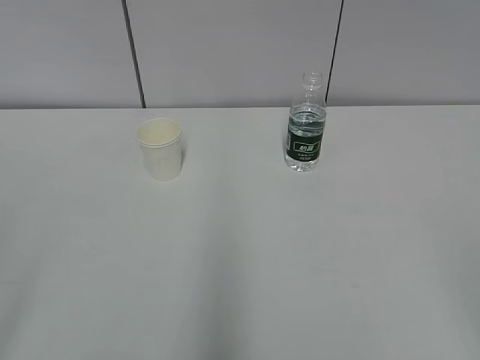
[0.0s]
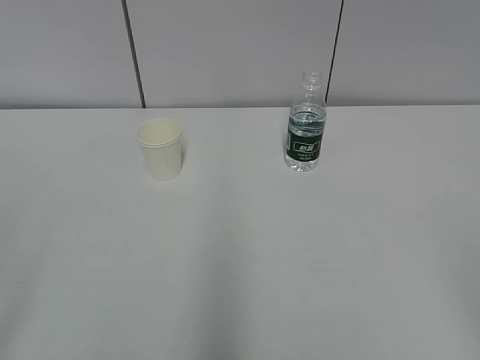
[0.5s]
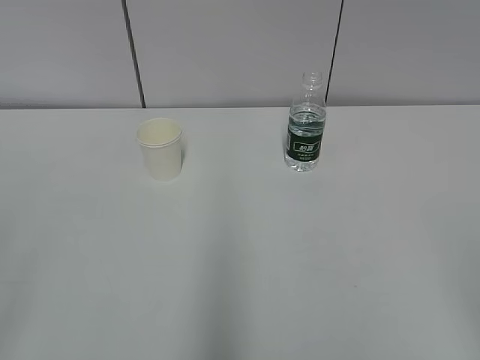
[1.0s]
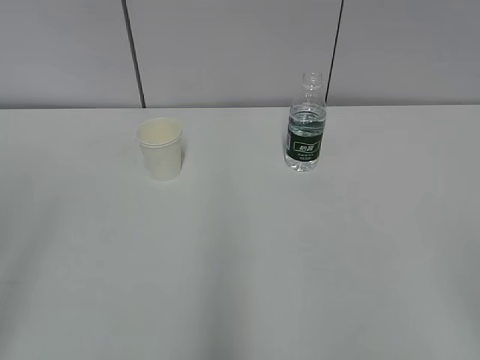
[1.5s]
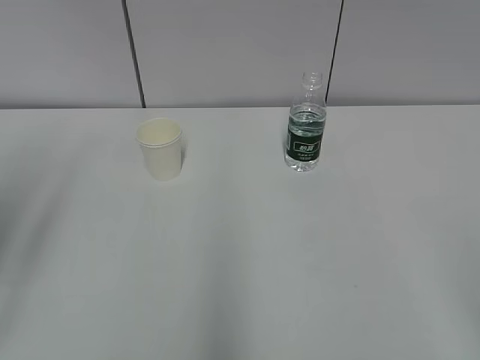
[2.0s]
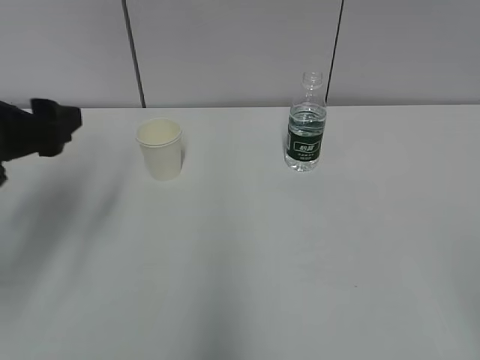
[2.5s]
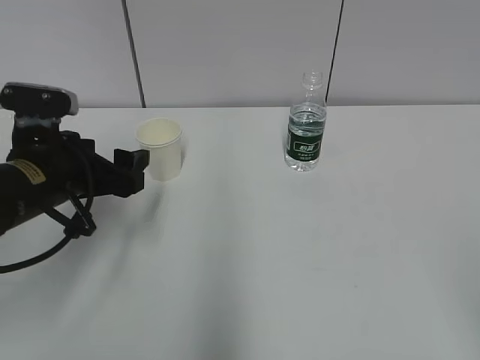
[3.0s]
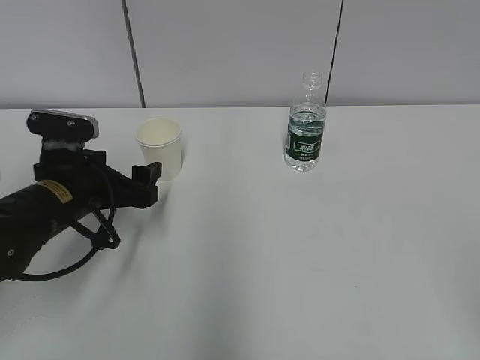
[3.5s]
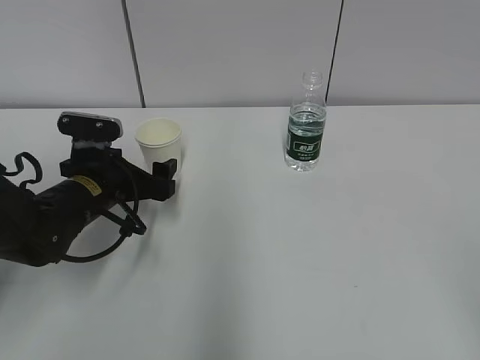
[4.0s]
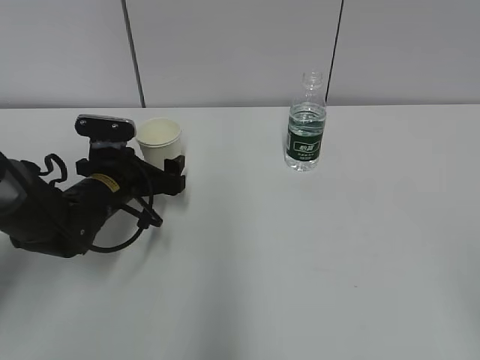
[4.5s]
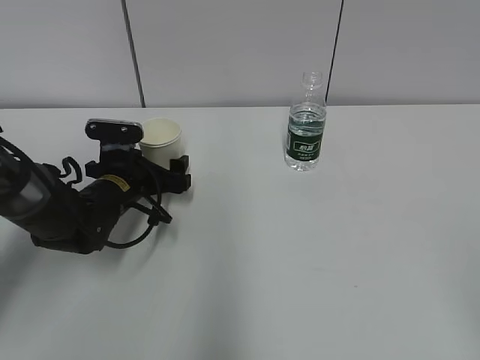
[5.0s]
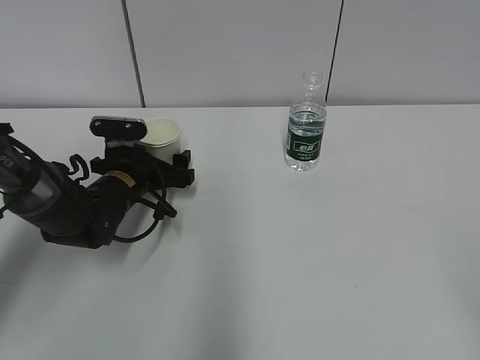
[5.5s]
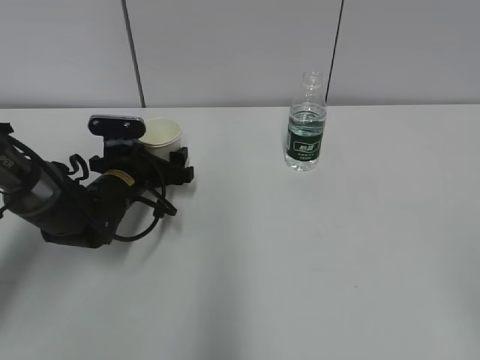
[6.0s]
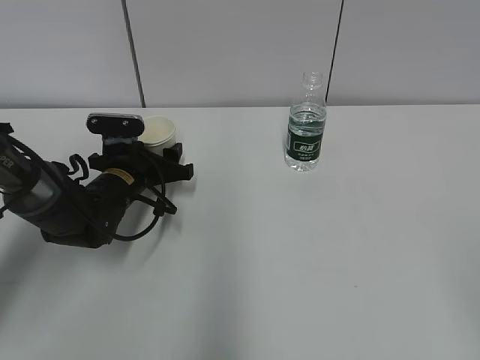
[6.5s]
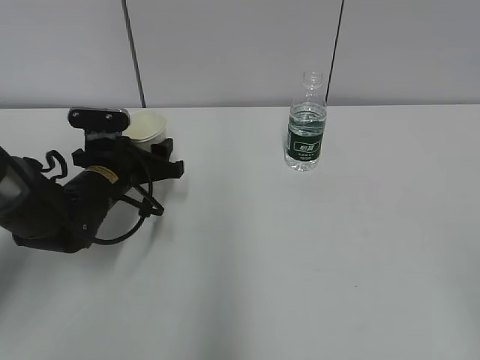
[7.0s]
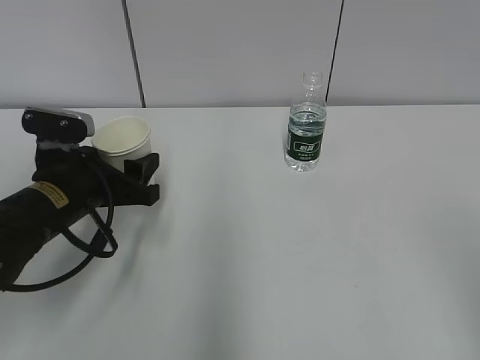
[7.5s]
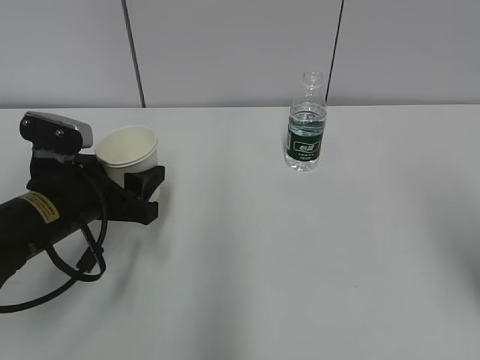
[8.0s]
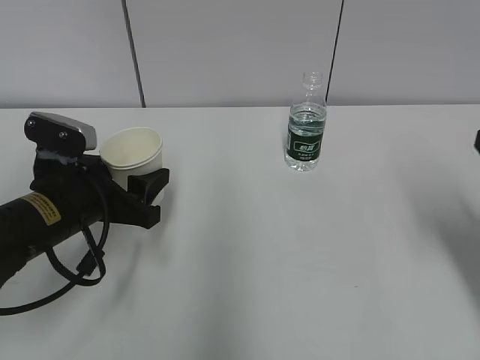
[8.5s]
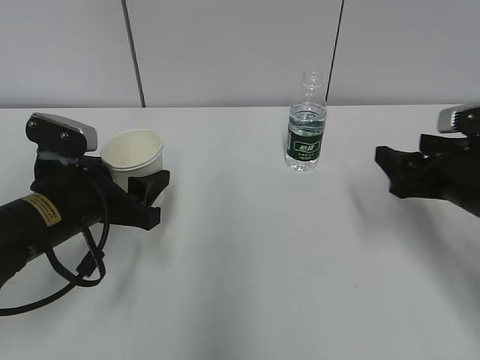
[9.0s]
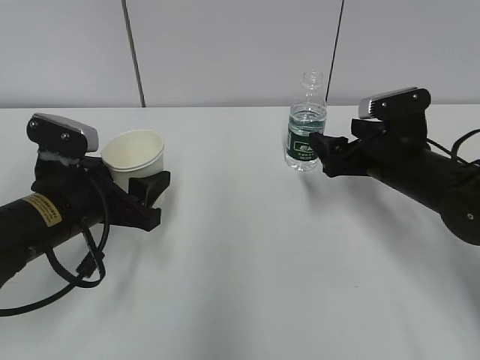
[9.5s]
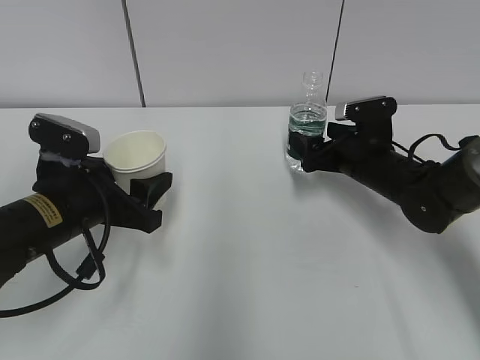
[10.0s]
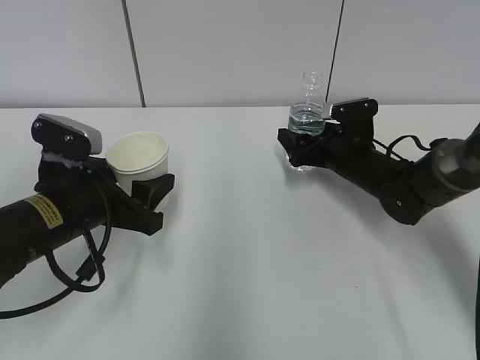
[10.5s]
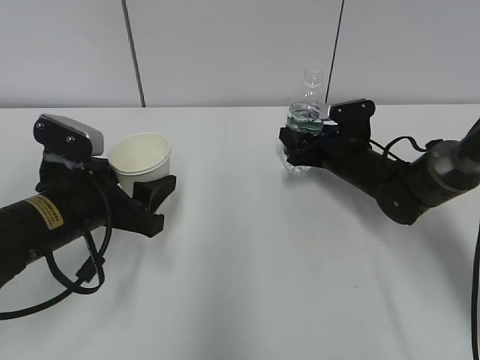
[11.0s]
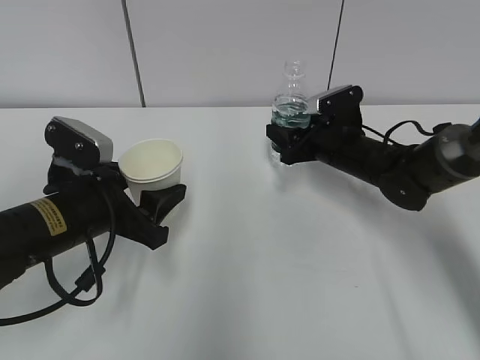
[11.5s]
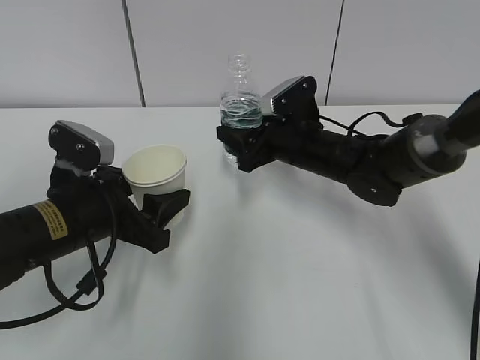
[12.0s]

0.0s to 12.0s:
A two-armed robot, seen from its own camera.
Step, 0.0s to 5.5s: Grab the paper cup with the left hand.
Step, 6.0s to 9.0s: Grab the water bottle with the right hand.
2.0s to 4.0s: The left gripper goes about 30 cm downward, forward and to the right, and opens.
4.0s to 6.0s: The left gripper travels forward by some 5 cm.
6.0s to 8.0s: The left gripper goes roughly 15 cm backward and upward, and closes up; the right gripper is displaced forward by roughly 15 cm.
8.0s to 10.0s: The right gripper shifts approximately 35 cm forward and downward, and opens.
10.0s to 12.0s: The right gripper moves to the left, some 10 cm, and closes up.

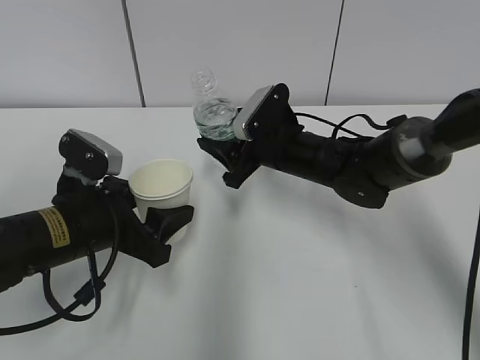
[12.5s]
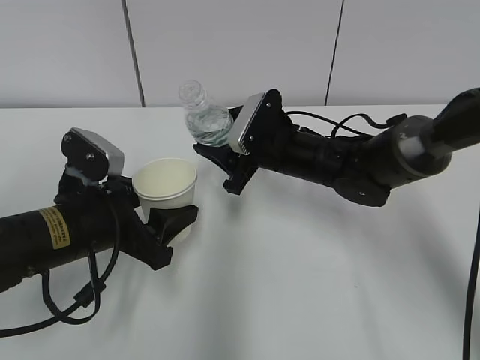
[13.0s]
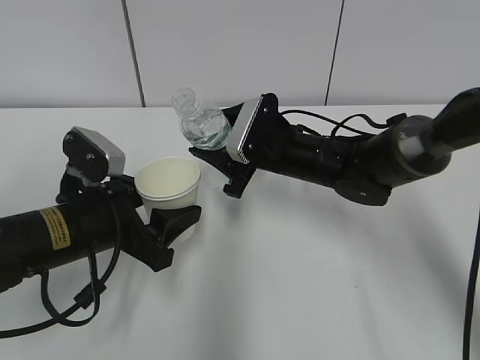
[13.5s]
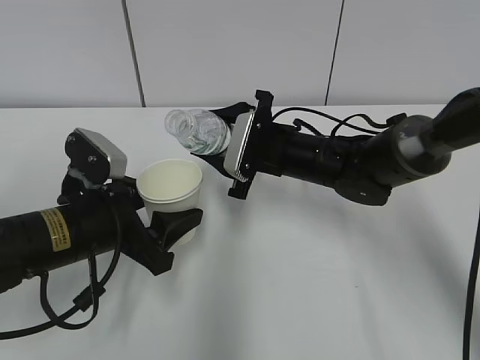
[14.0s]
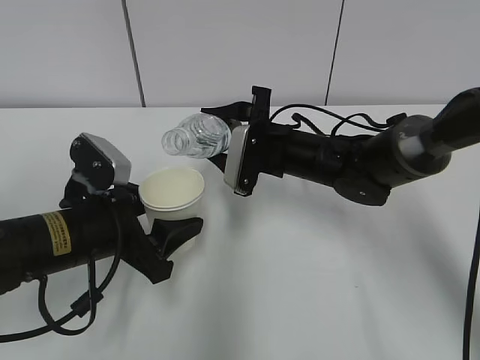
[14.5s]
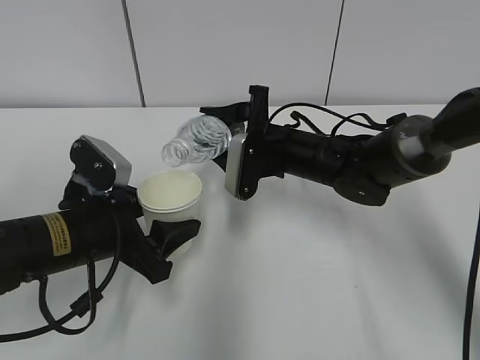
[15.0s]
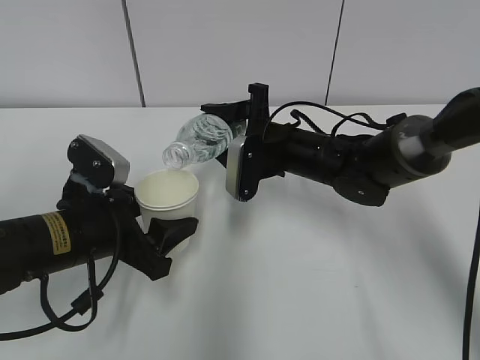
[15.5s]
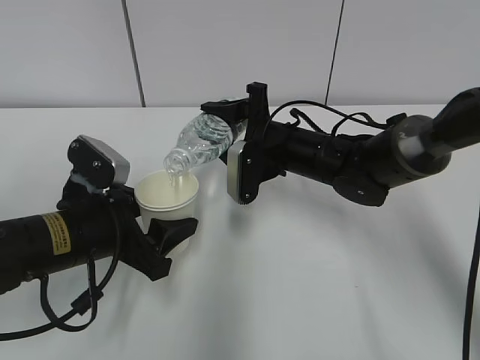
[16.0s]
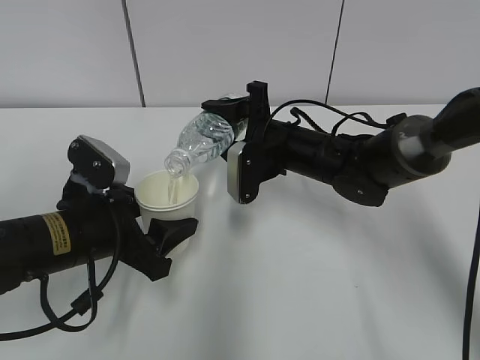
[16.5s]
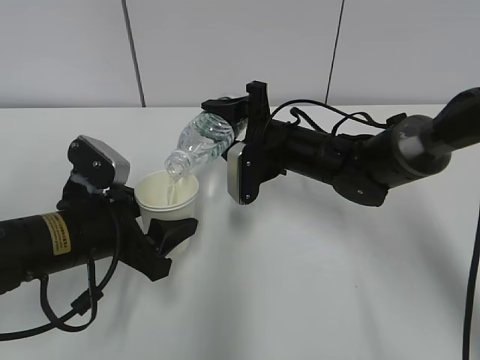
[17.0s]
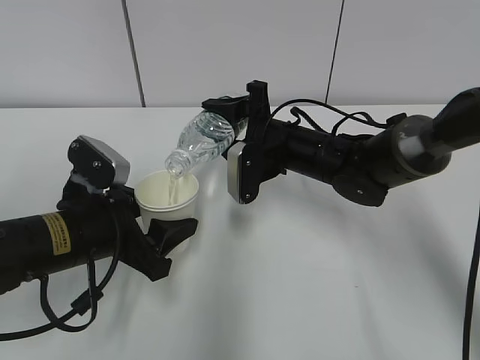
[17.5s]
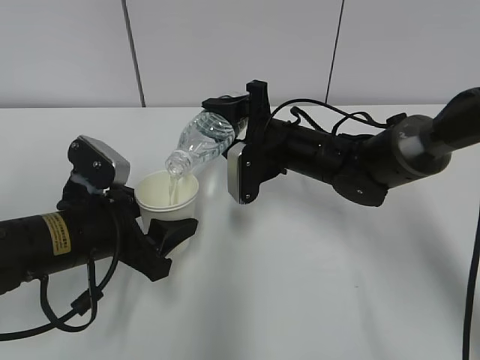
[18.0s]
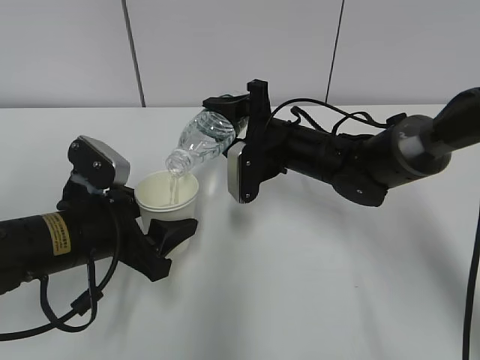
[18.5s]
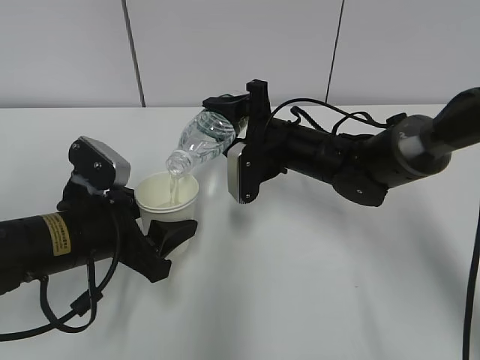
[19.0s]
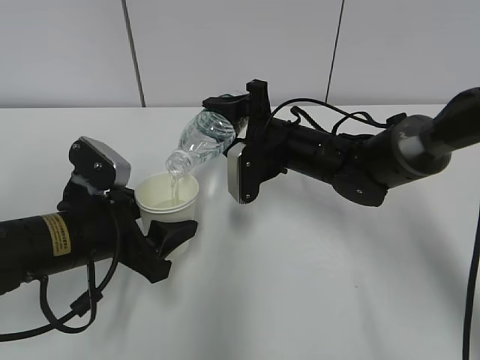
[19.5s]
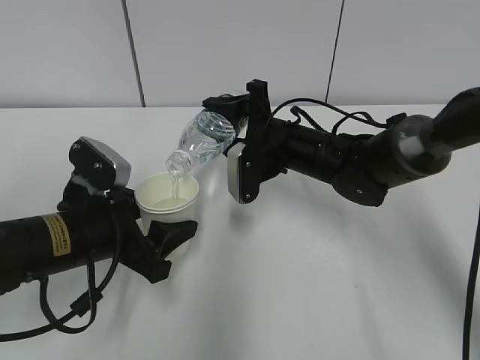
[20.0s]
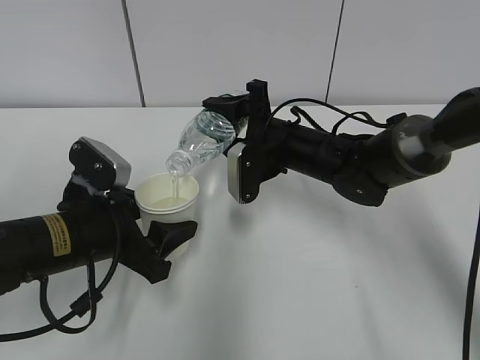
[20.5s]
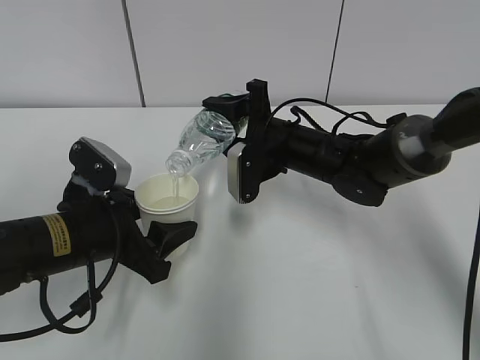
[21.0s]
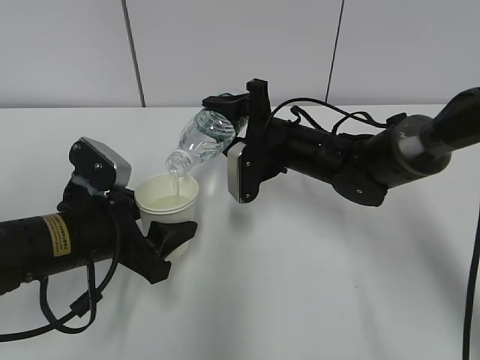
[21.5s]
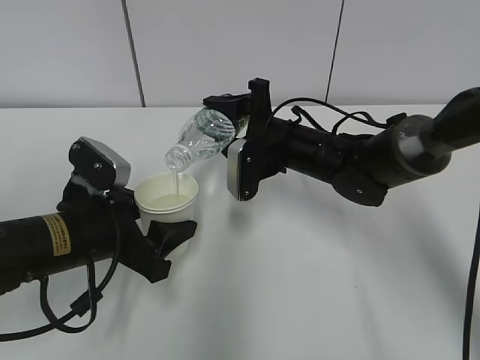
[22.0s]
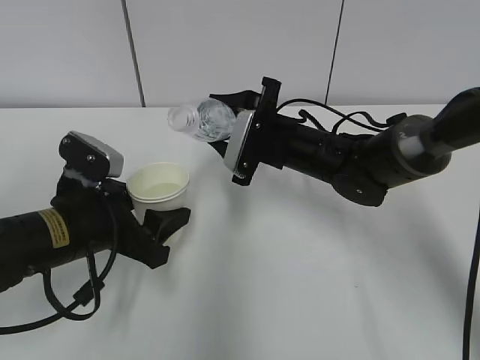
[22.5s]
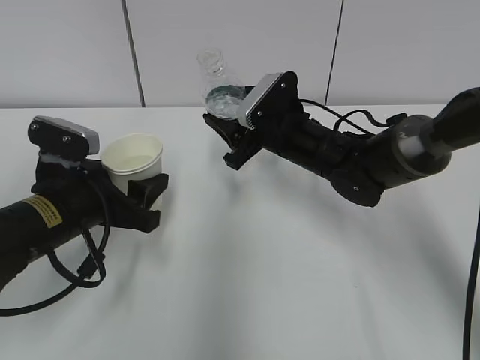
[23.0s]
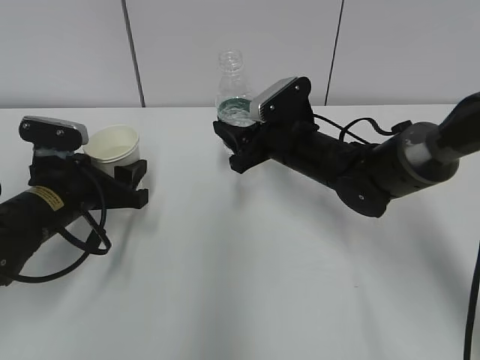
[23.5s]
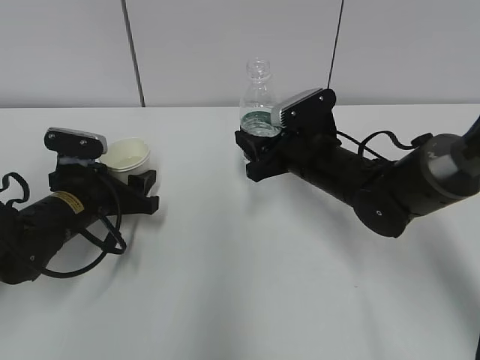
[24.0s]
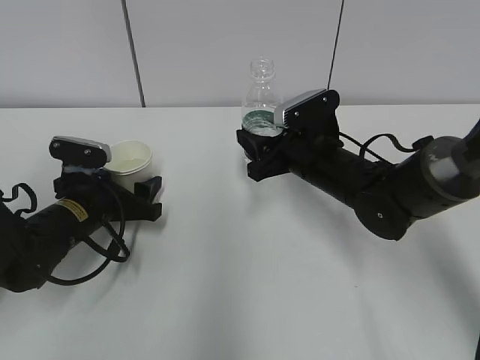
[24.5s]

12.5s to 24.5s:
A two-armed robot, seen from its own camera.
Step, 13.5s to 18.5s: Fill water with the left hand.
Step, 13.5s to 18.5s: Pour water with the right hand.
16.5s to 20.5s: The two grippers keep their place.
22.5s to 24.5s: The left gripper moves forward and downward, roughly 10 cm, and opens its fingers.

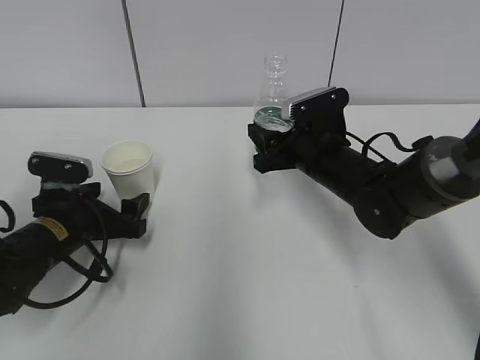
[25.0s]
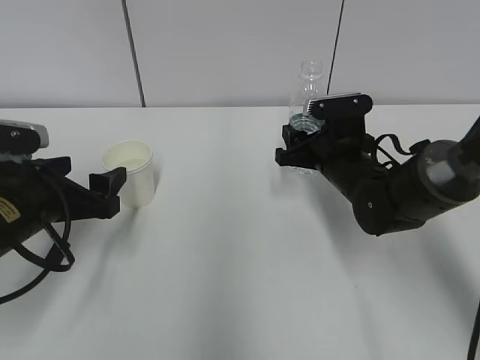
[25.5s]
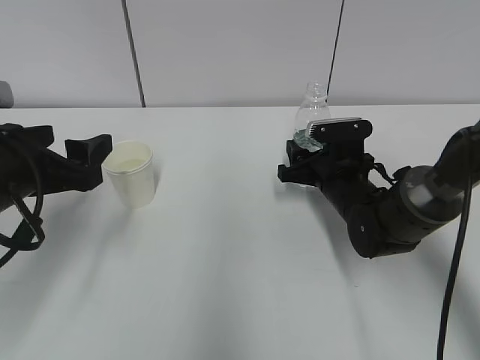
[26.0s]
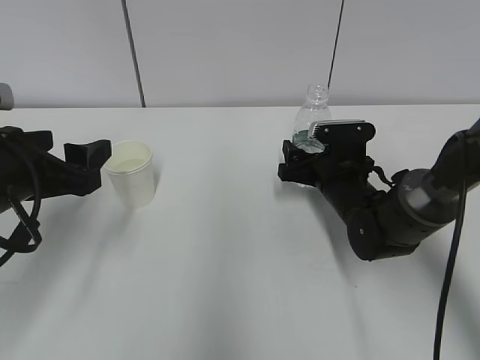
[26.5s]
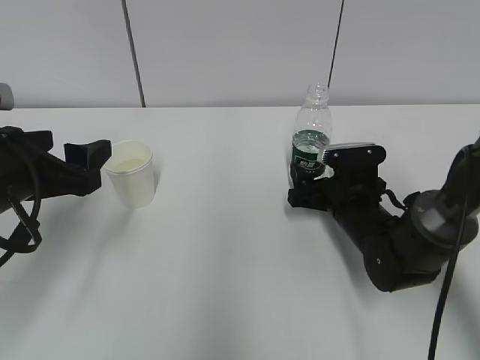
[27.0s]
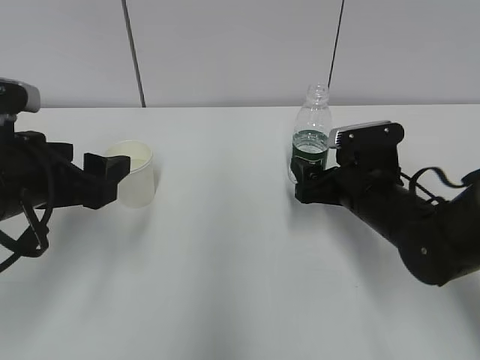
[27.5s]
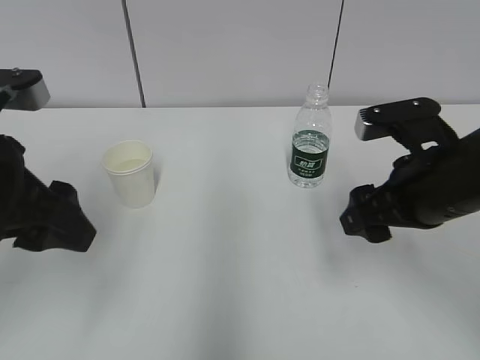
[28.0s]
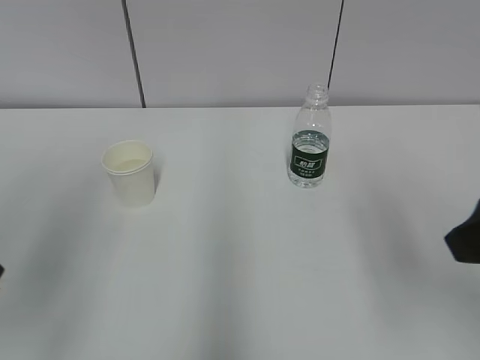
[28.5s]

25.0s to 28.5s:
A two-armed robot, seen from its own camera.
25.0s to 27.0s: The left gripper shifts about 15 cm upward and backward. The right gripper moves downward, approximately 5 cm, and opens up.
27.0s to 28.5s: The left gripper heads upward and backward, covering some 15 cm. Meanwhile the right gripper heads upward and backward, covering approximately 35 cm.
